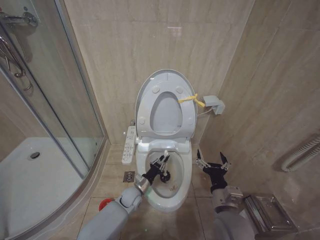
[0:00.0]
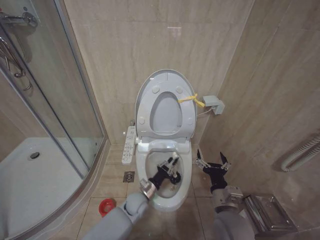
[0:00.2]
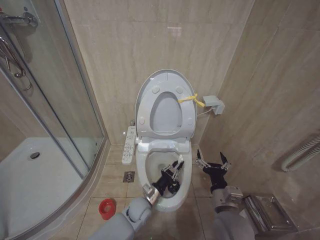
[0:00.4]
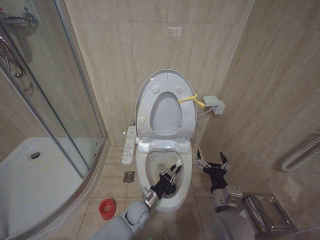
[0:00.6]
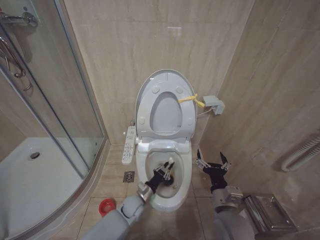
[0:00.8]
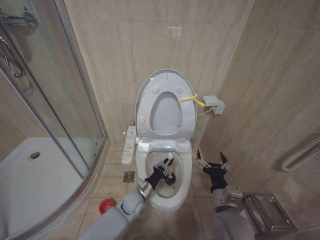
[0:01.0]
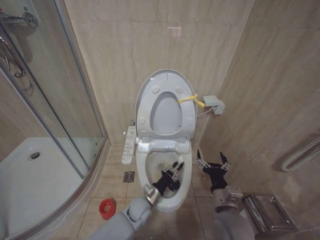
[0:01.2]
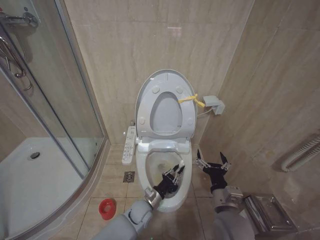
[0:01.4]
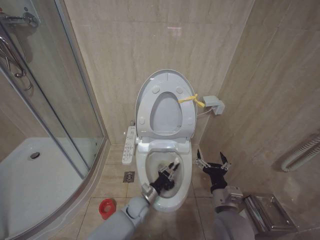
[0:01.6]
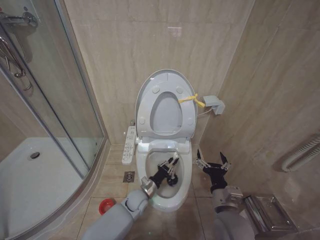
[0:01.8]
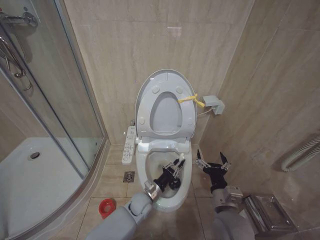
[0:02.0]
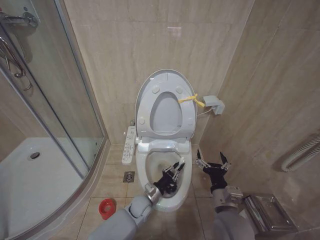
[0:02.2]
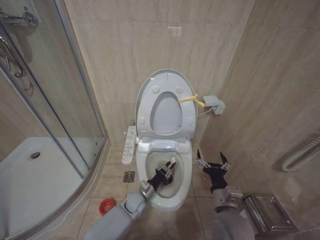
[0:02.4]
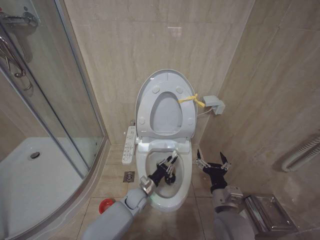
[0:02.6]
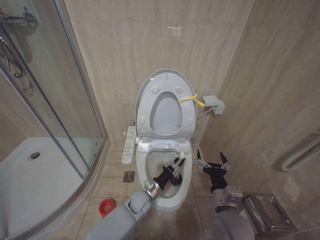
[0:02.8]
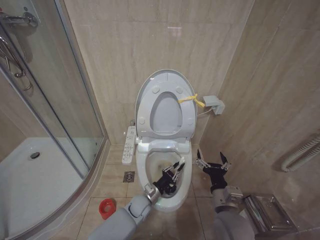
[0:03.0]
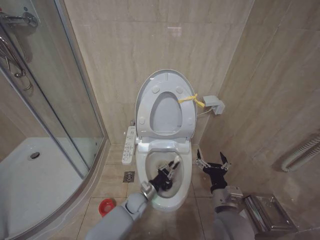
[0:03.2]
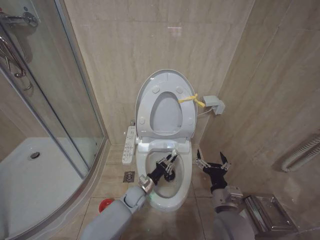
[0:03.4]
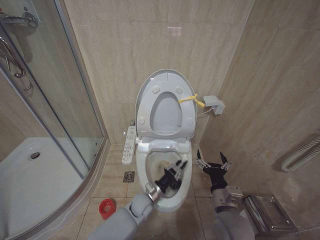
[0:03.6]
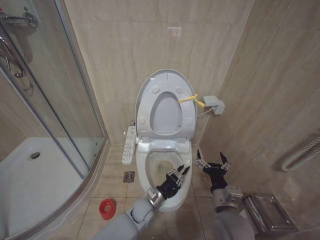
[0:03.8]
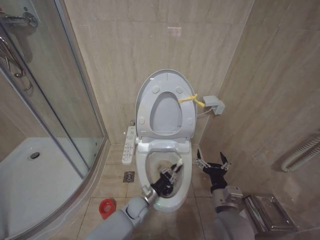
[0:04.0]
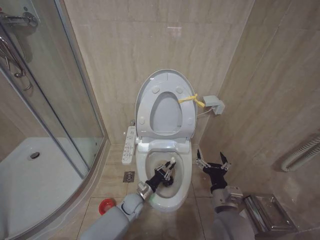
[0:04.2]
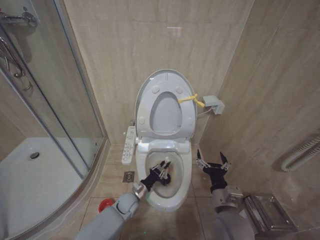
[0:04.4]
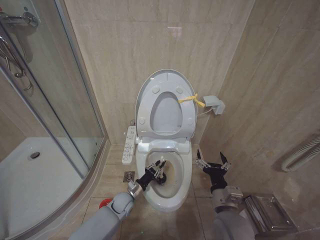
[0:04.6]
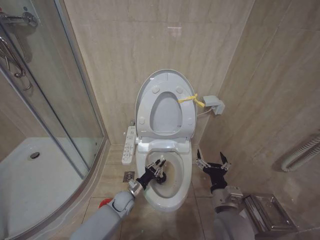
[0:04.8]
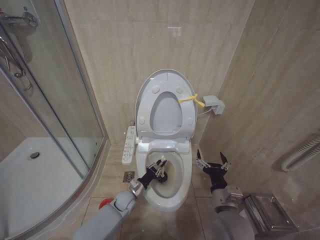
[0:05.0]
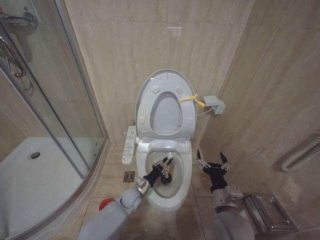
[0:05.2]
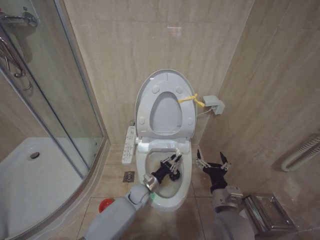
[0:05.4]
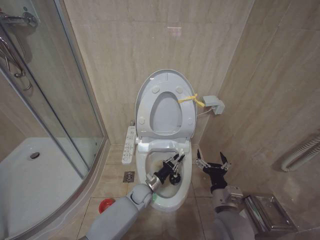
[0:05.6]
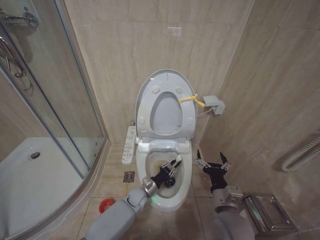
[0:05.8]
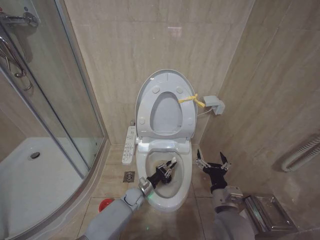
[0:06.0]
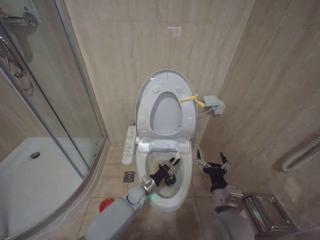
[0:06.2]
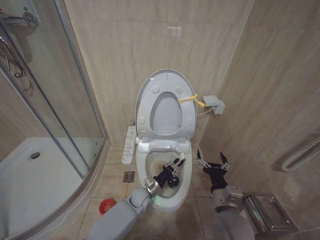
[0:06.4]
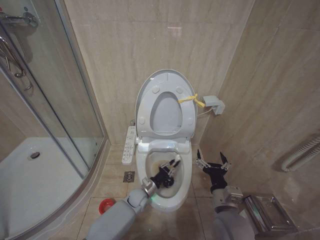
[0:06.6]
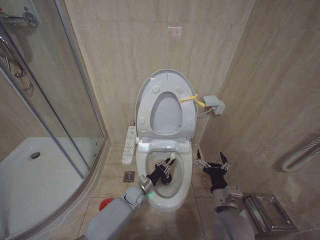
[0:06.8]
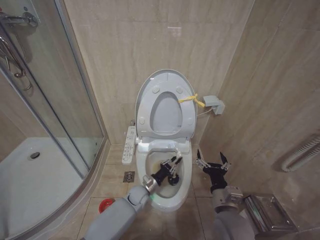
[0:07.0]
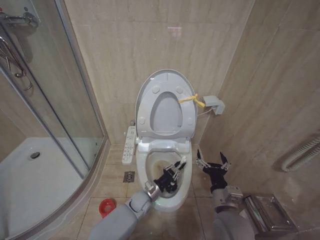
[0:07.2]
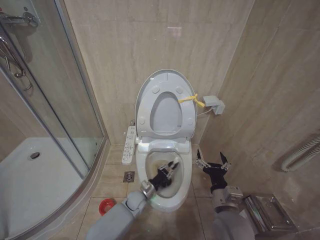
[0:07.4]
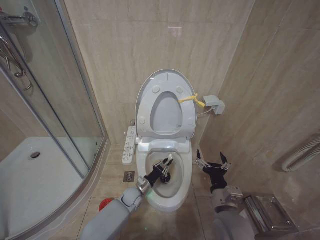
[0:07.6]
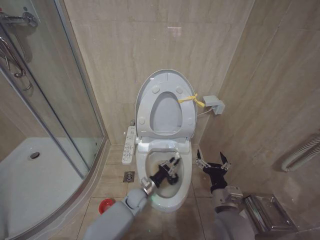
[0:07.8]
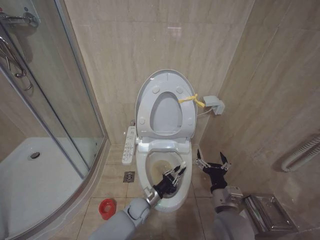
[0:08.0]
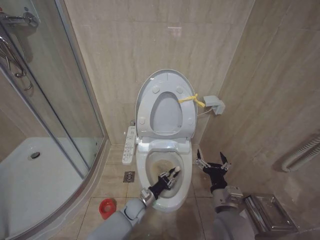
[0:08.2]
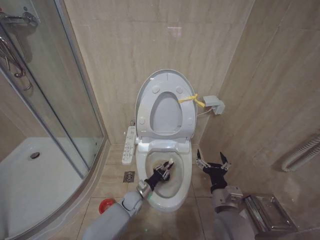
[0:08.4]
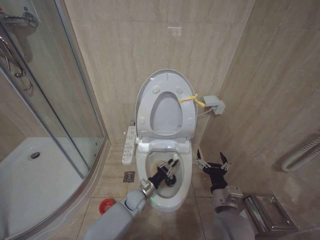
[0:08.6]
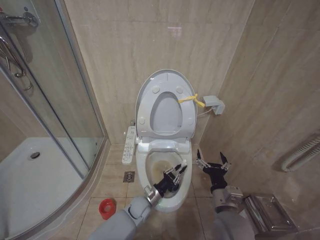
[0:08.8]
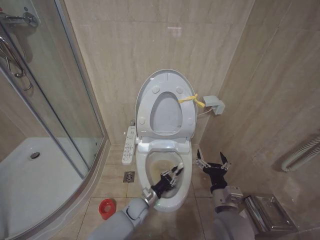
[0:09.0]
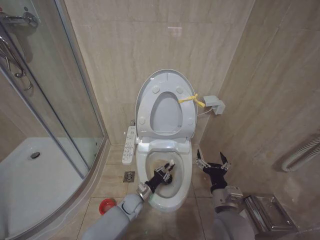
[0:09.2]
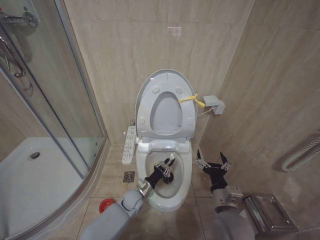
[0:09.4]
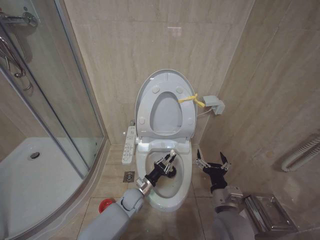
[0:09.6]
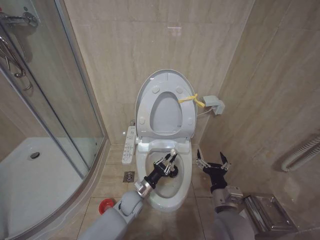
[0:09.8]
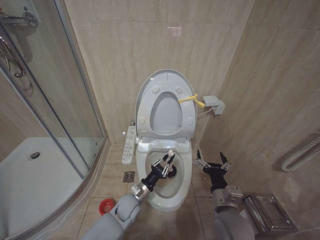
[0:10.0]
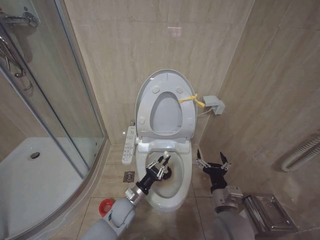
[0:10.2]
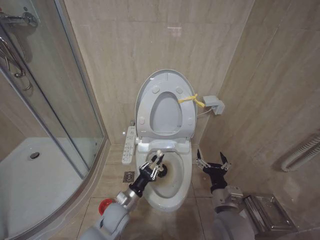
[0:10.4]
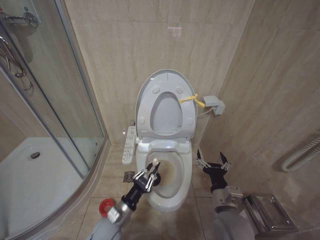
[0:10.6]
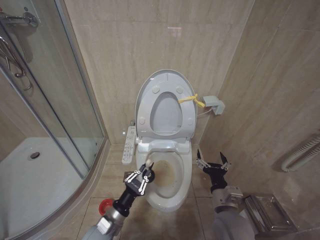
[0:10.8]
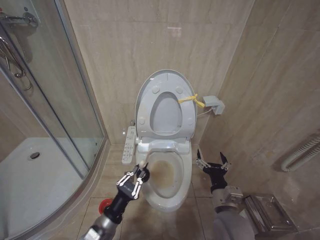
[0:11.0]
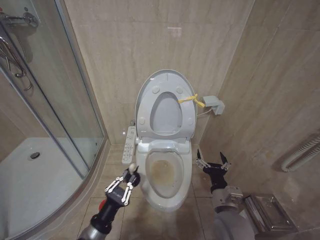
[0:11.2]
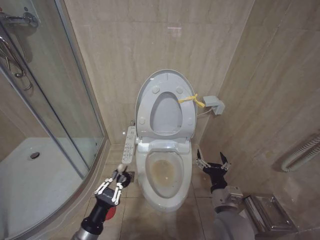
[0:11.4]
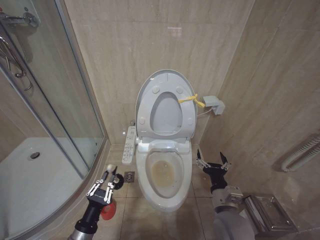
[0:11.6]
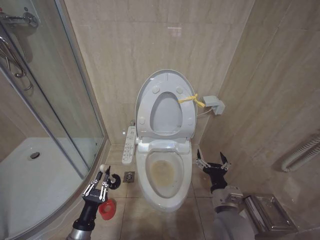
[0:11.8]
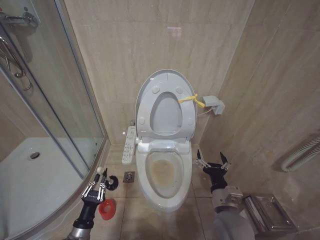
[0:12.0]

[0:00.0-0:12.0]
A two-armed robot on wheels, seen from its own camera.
Task of the whole recording: Open the toilet lid, clean the toilet bowl with a toilet brush, close the toilet lid, and flush.
0:00.0 to 0:01.6: The left gripper ends up approximately 5 cm from where it was.
0:03.0 to 0:04.4: The left gripper shifts by some 5 cm.
0:07.6 to 0:09.0: The left gripper ends up approximately 5 cm from where it was.
0:09.0 to 0:10.4: The left gripper travels upward and to the left by roughly 10 cm.
0:10.4 to 0:12.0: The left gripper goes some 20 cm to the left and backward.

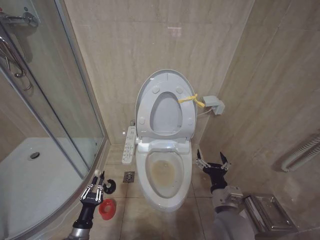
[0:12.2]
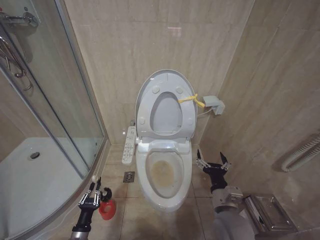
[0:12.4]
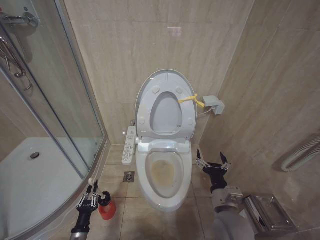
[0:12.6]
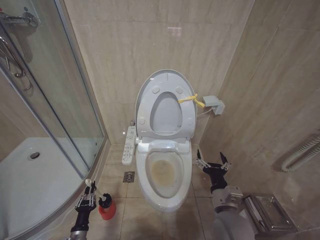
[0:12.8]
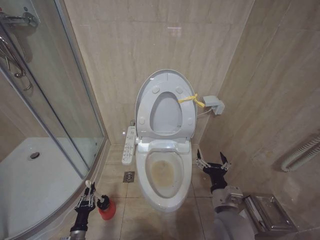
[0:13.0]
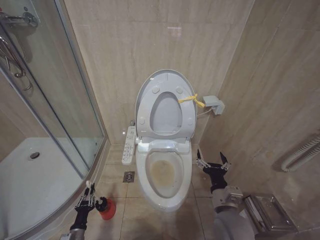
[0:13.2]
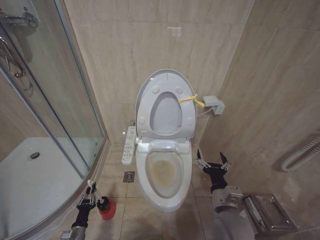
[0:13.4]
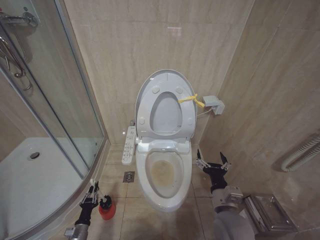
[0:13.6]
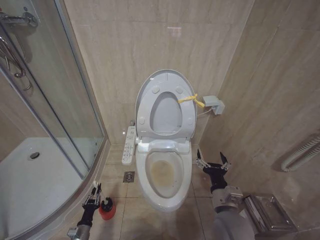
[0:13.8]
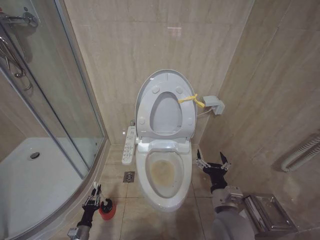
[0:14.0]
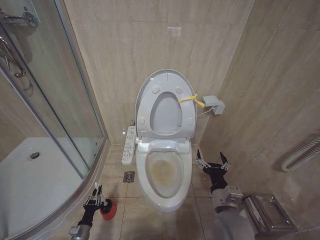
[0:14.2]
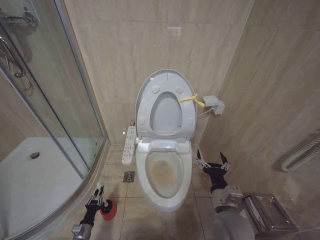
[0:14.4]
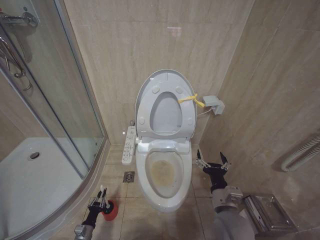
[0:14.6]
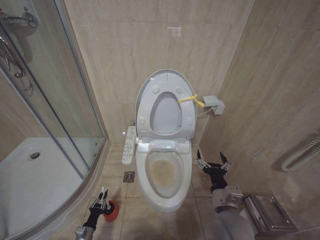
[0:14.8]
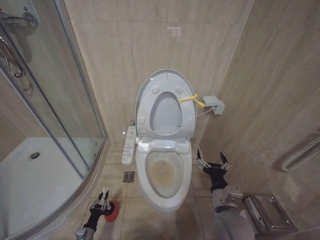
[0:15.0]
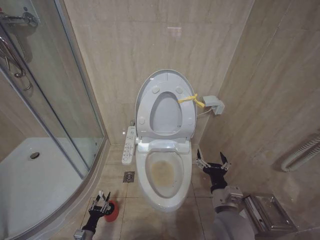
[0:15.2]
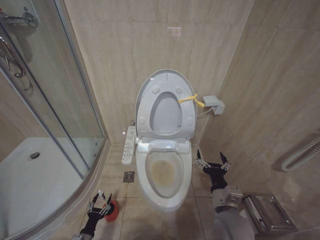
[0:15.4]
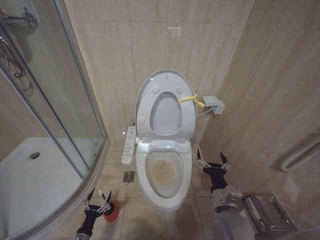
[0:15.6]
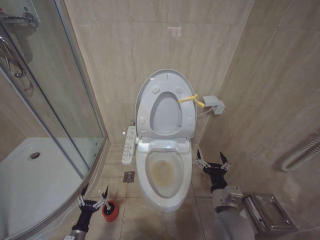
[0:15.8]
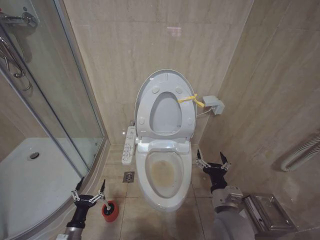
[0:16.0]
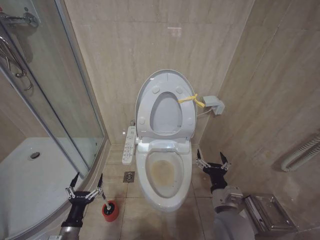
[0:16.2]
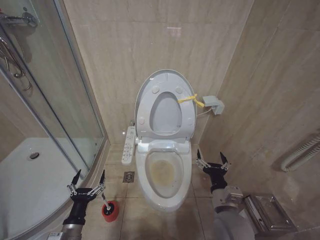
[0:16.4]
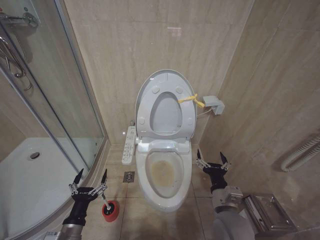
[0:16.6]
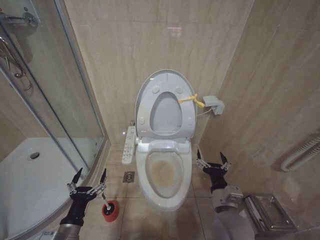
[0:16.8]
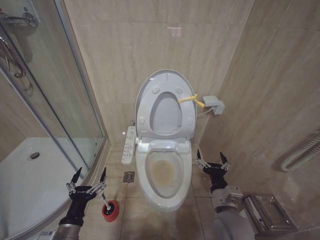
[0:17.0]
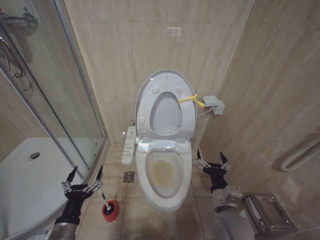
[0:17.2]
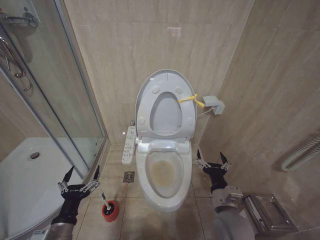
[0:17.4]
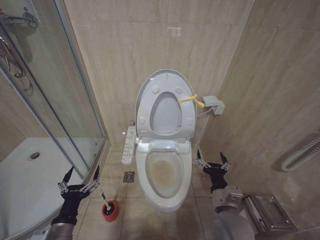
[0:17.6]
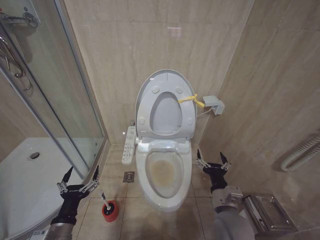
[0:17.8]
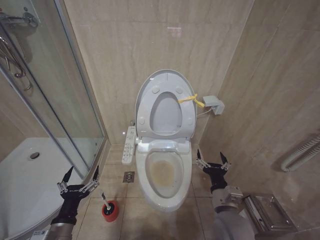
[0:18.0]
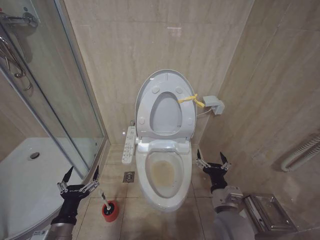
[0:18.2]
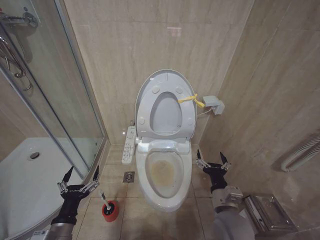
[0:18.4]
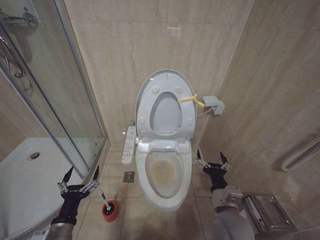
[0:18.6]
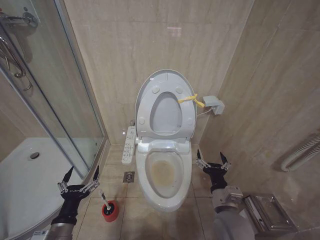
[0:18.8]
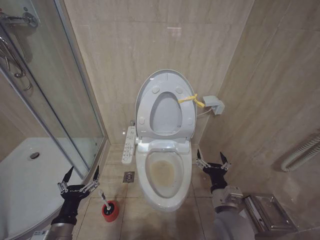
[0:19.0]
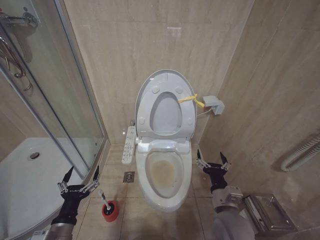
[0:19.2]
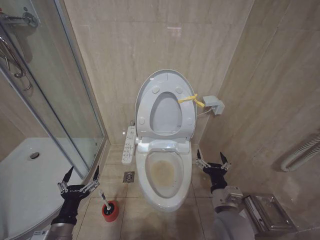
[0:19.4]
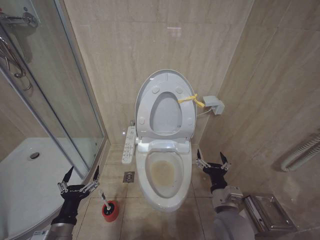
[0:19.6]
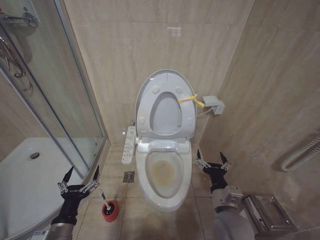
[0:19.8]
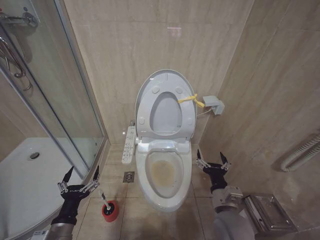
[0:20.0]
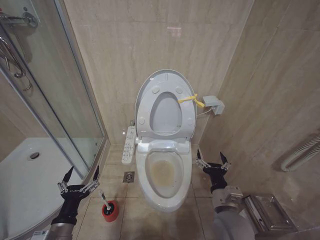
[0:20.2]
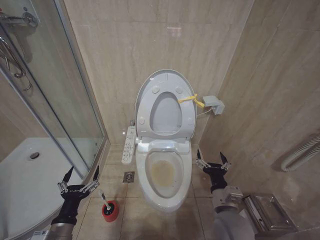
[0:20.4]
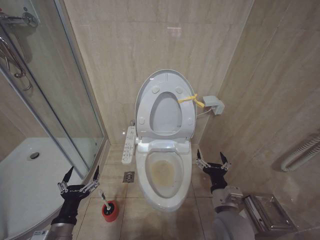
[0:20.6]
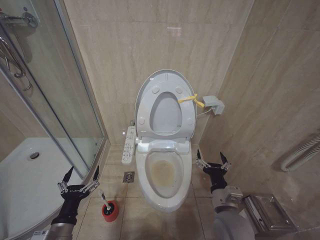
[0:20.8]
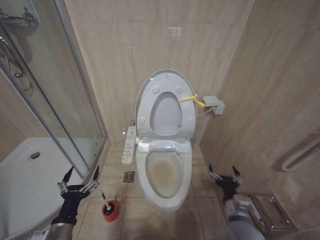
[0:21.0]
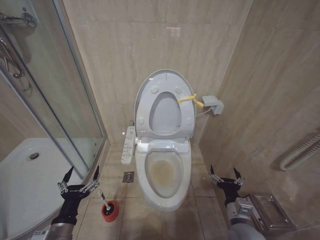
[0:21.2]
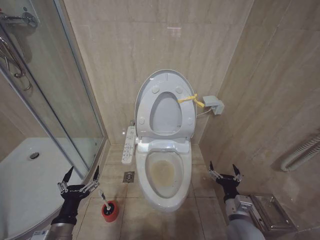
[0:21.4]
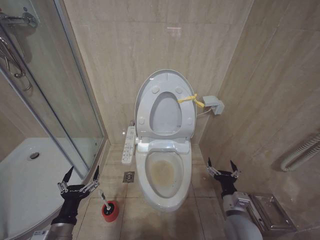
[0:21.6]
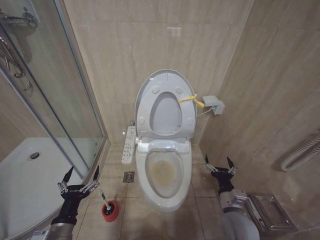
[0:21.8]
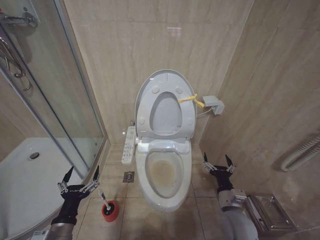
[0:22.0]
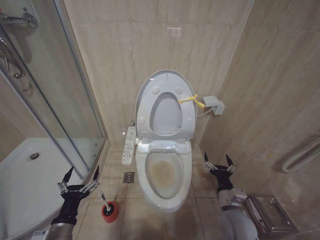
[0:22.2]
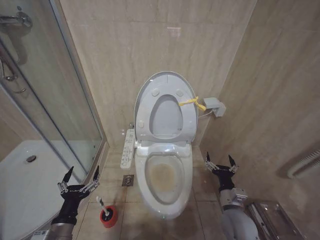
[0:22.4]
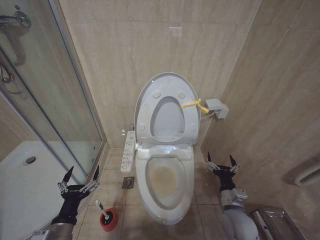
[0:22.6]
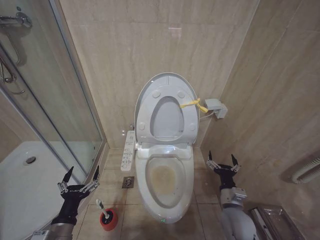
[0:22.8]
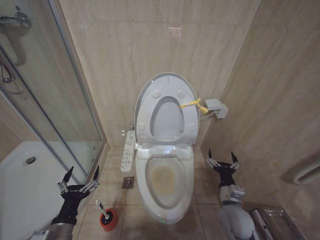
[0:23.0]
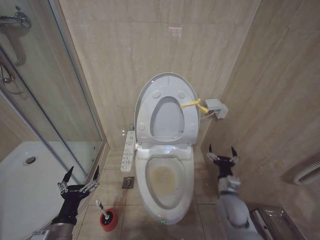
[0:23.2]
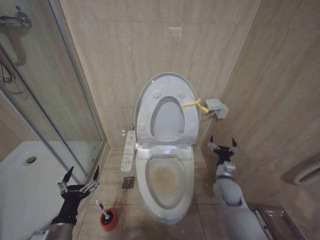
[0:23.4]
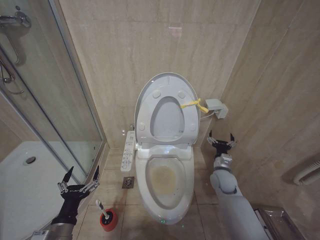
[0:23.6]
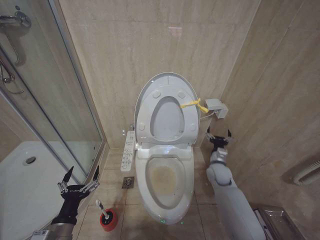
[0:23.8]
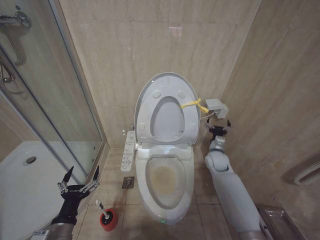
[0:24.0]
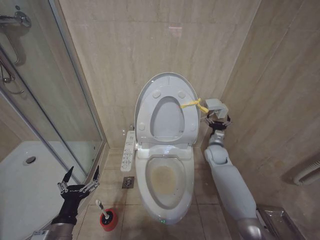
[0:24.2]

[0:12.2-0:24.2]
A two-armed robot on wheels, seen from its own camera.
Task of the whole recording: Open the toilet lid, clean the toilet bowl with a toilet brush, close the toilet lid, and flush.
0:12.2 to 0:13.8: The left gripper heads downward, covering roughly 15 cm.
0:13.8 to 0:15.2: The grippers move only a little.
0:15.2 to 0:16.6: The left gripper heads upward, covering roughly 25 cm, and opens.
0:16.6 to 0:18.2: The grippers stay close to where they were, moving slightly.
0:18.2 to 0:19.8: Neither gripper changes place.
0:19.8 to 0:21.2: The right gripper is displaced to the right and downward by about 10 cm.
0:21.2 to 0:22.6: The grippers stay close to where they were, moving slightly.
0:22.6 to 0:24.2: The right gripper is displaced forward by about 25 cm.
